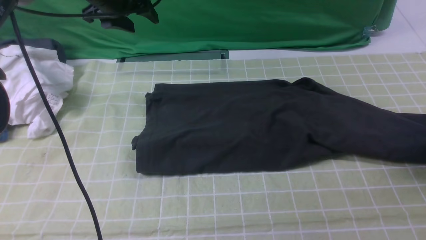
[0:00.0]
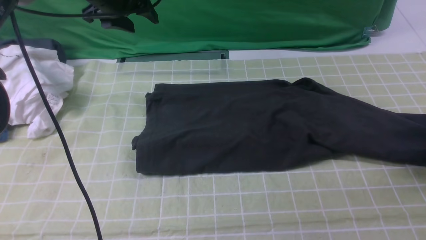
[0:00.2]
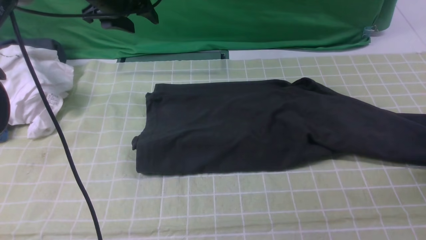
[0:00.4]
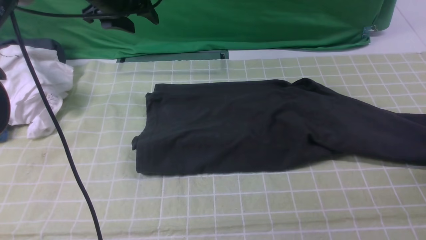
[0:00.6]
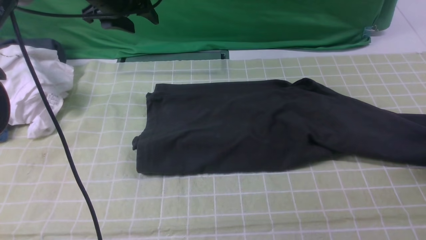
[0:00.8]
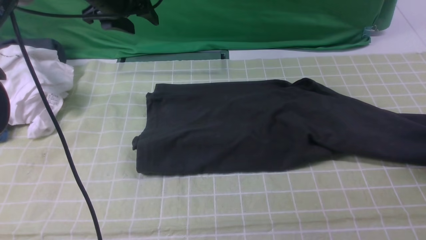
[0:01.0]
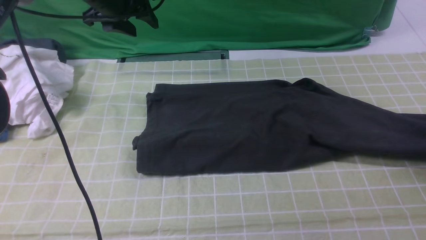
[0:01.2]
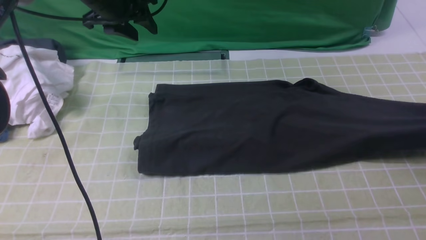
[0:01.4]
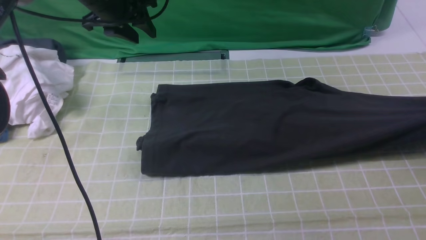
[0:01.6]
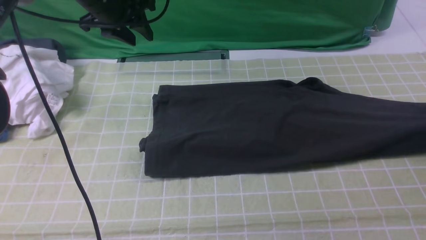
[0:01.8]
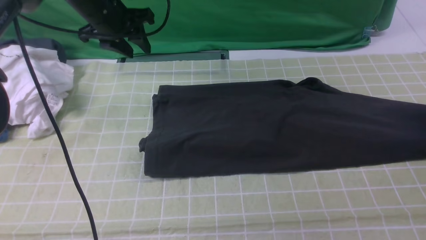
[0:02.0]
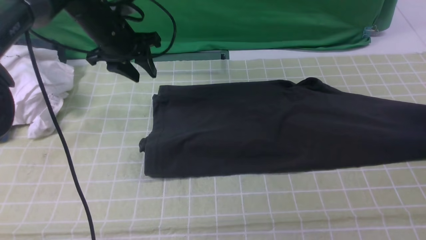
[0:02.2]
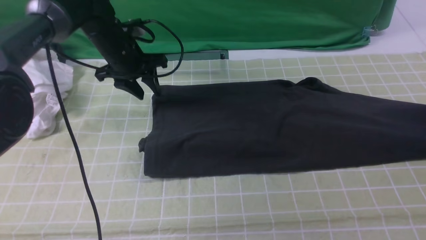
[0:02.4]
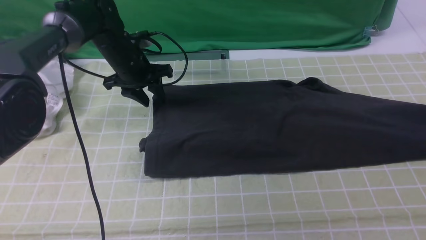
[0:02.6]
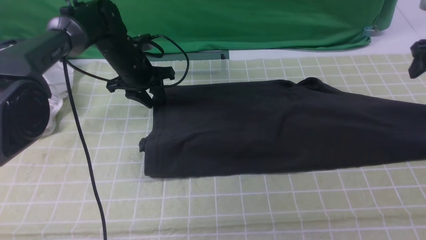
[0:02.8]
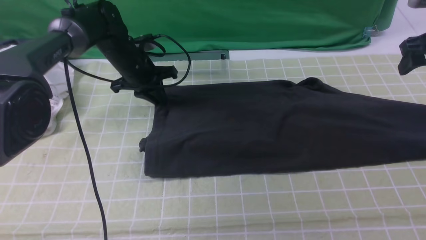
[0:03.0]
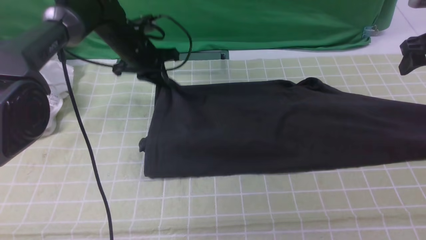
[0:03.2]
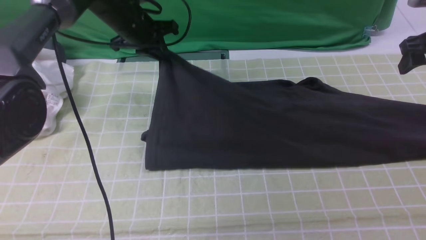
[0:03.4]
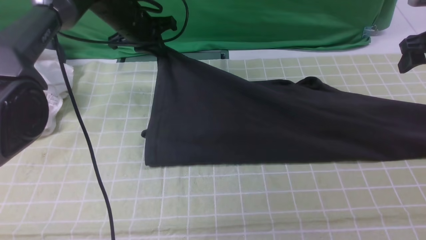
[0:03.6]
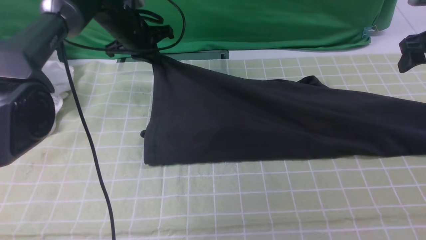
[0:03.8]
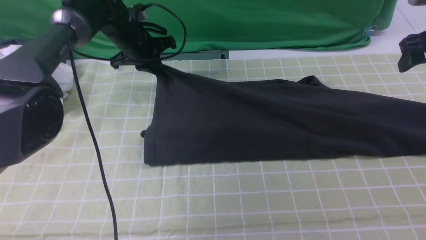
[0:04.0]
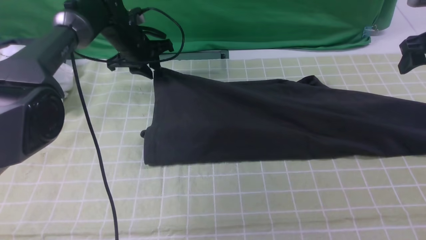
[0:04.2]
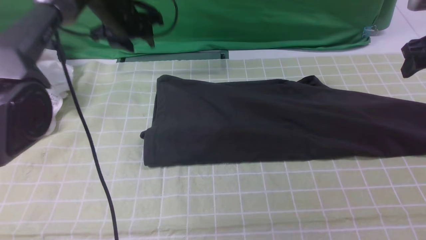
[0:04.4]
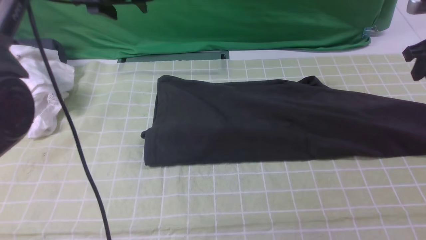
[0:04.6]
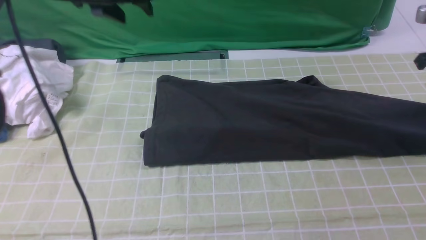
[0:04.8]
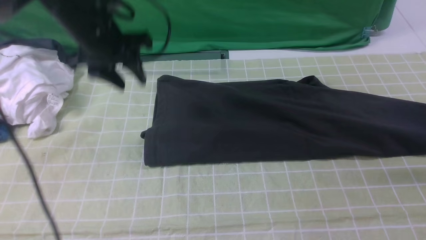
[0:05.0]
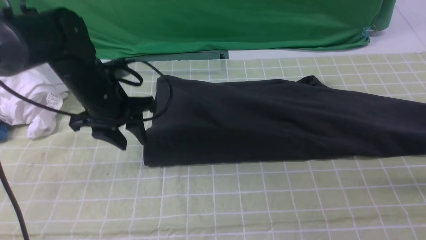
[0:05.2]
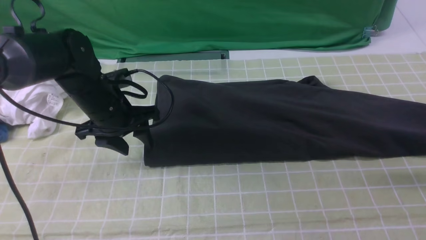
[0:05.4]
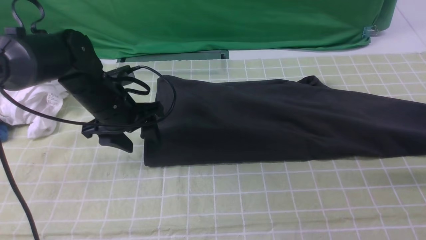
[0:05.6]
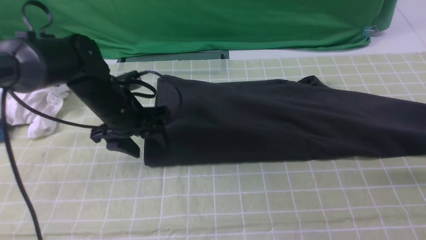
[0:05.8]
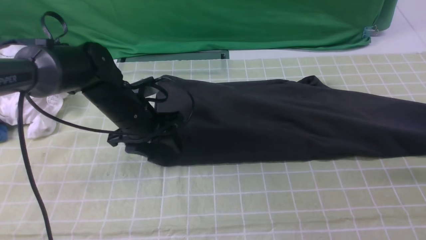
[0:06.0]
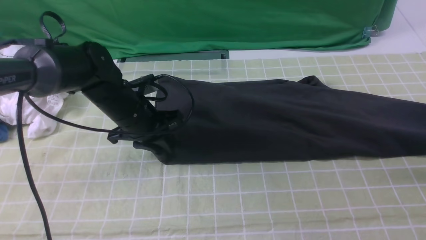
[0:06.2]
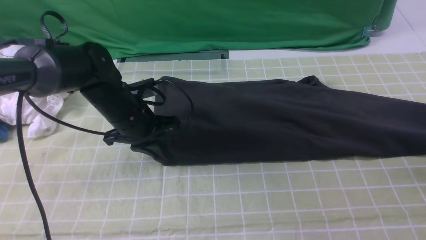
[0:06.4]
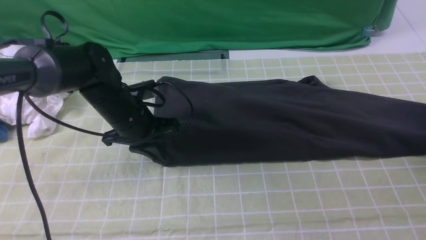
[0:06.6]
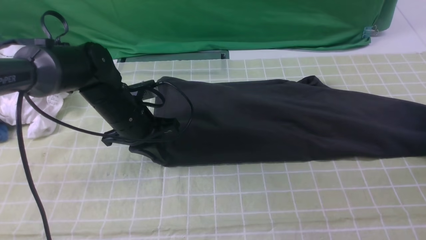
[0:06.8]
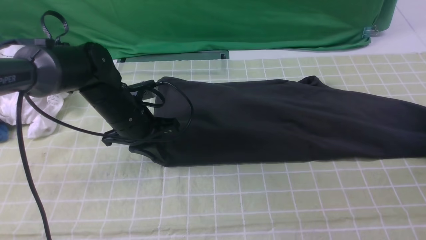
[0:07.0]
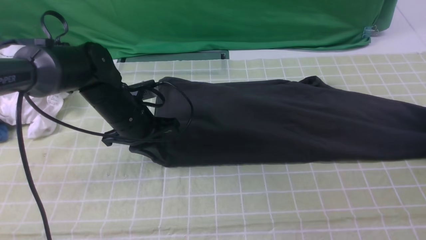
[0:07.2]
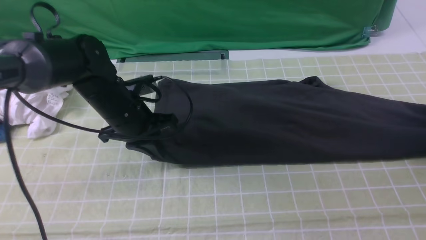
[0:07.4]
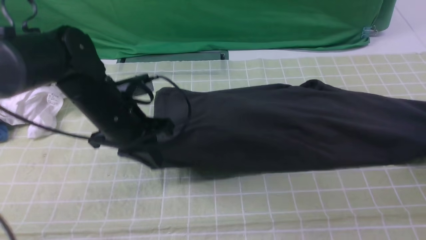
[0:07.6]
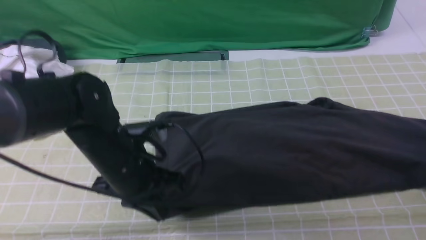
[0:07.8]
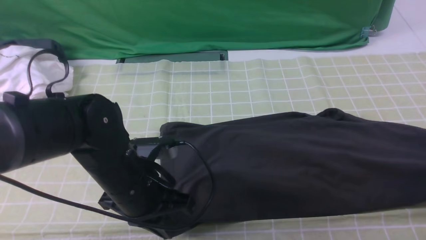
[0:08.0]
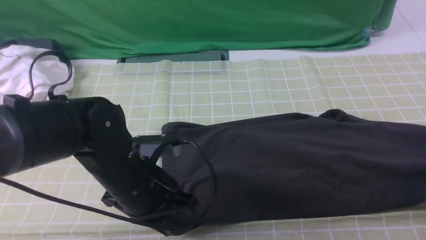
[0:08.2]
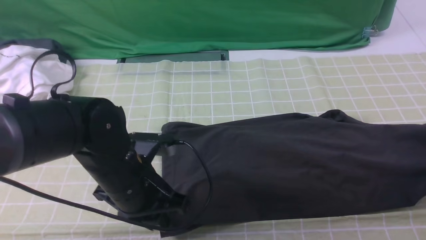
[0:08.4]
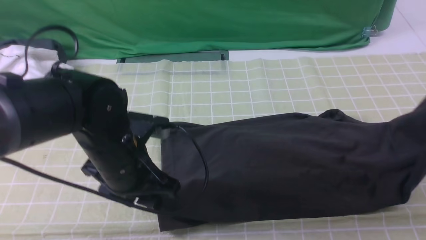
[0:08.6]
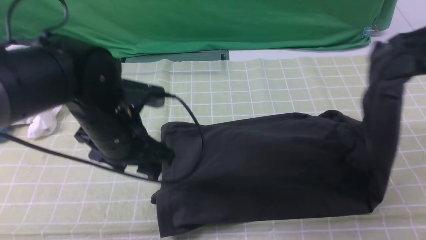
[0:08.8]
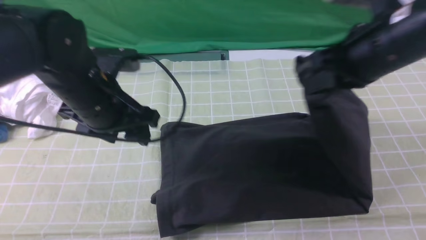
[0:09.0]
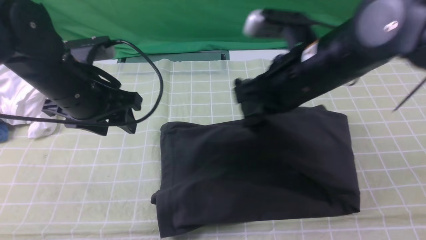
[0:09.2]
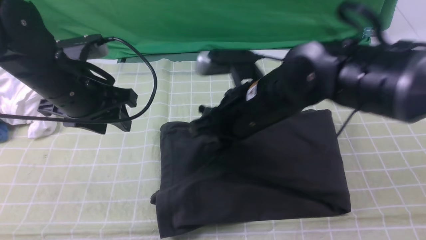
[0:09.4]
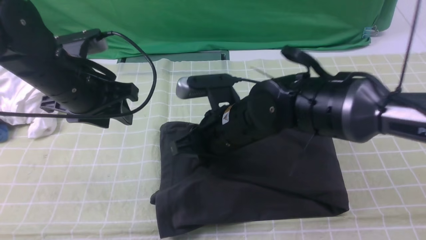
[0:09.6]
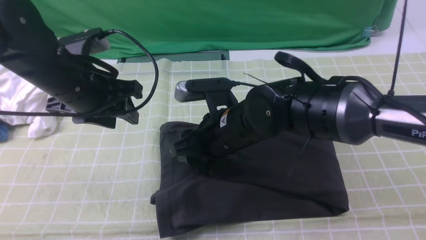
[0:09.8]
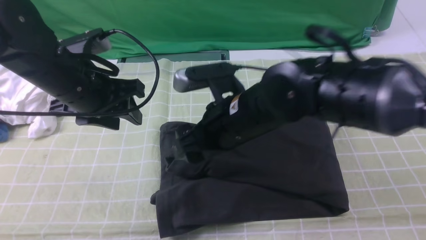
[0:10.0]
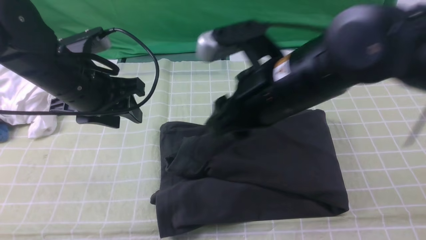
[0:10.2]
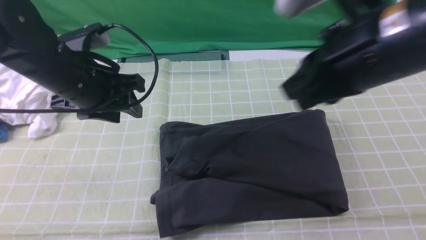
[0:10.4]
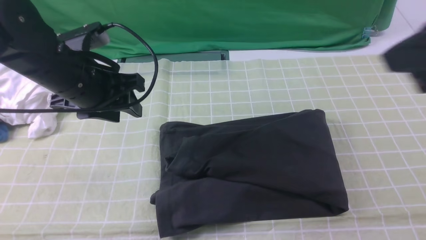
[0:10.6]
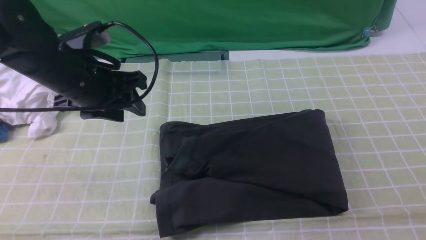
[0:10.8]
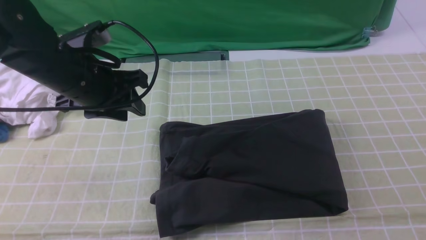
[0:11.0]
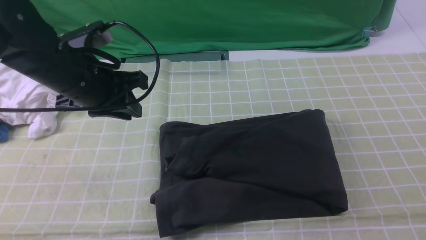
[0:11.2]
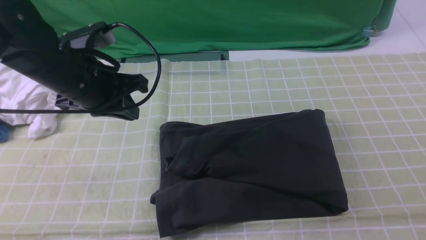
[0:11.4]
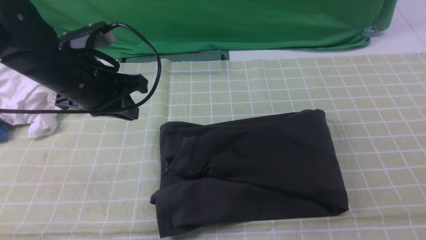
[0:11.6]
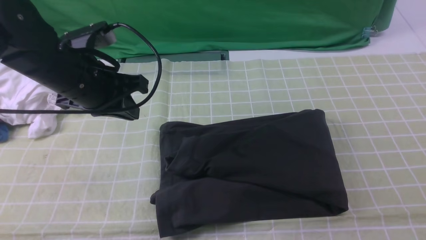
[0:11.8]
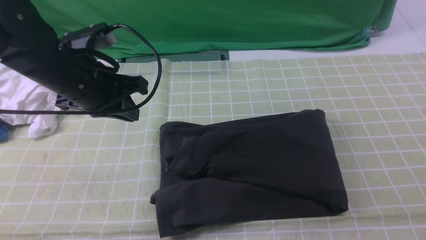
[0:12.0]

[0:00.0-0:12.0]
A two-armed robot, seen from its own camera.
Step, 0:00.0 to 0:07.2: use the right arm to clamp the right edge of the fabric.
Step, 0:07.4 to 0:10.0: use the right arm to drag the right edge of the fabric to the left and folds it over the left edge.
0:00.0 to 0:01.6: The right gripper travels to the right by about 5 cm, and closes up.
0:01.6 to 0:03.0: The right gripper is displaced to the left, forward and upward by approximately 15 cm, and opens its fingers. Meanwhile the left gripper is displaced downward by roughly 10 cm, and closes.
0:03.0 to 0:04.4: The left gripper is displaced upward by roughly 10 cm, and opens its fingers.
0:04.4 to 0:06.0: The left gripper travels backward and downward by about 20 cm. Meanwhile the right gripper goes approximately 5 cm backward, and closes up.
0:06.0 to 0:07.6: The right gripper is displaced to the right by some 5 cm, and opens and closes again. The left gripper shifts roughly 5 cm backward, and closes.
0:07.6 to 0:09.0: The right gripper travels to the left by some 30 cm, while the left gripper heads upward, covering about 5 cm, reaches roughly 10 cm backward, then returns, and opens up.
0:09.0 to 0:10.4: The right gripper shifts about 10 cm backward and upward, and opens, then closes again.
0:10.4 to 0:12.0: The left gripper closes. The right gripper heads backward, to the right and downward, covering roughly 25 cm.

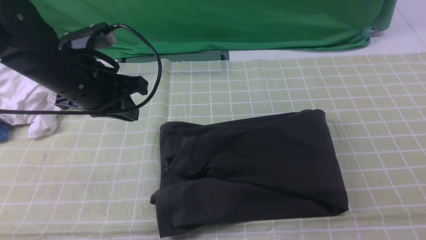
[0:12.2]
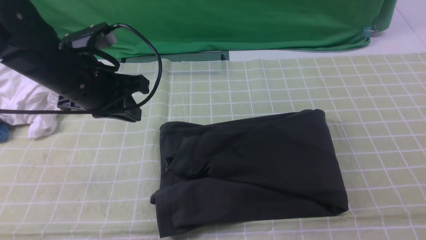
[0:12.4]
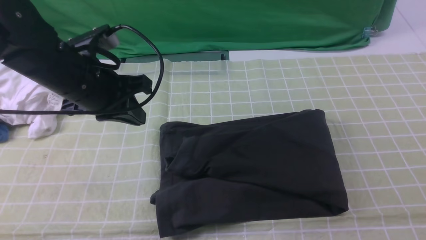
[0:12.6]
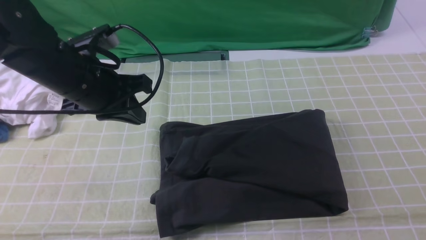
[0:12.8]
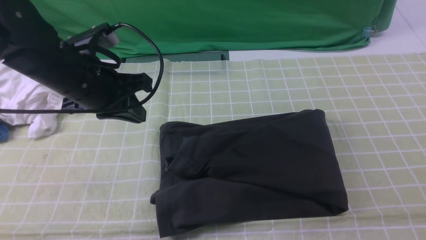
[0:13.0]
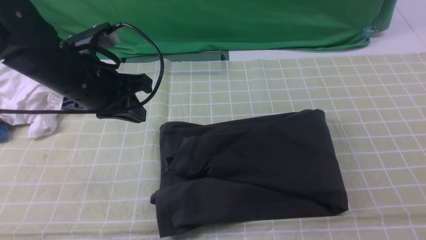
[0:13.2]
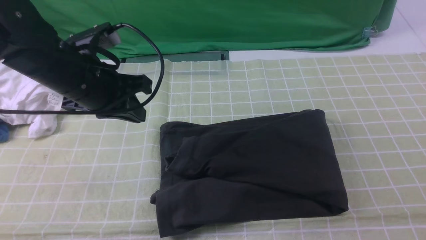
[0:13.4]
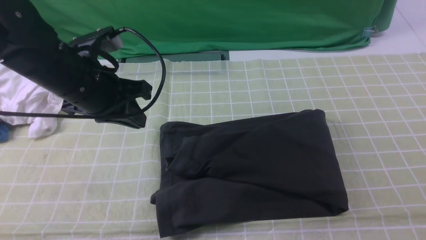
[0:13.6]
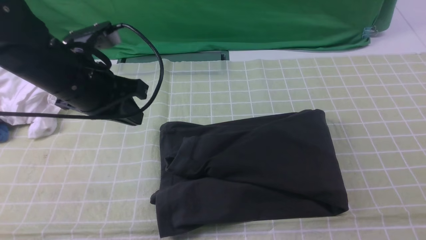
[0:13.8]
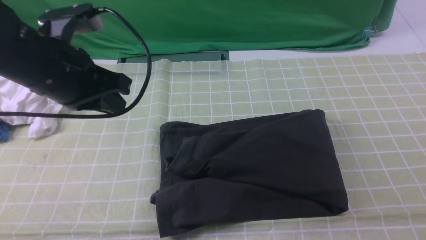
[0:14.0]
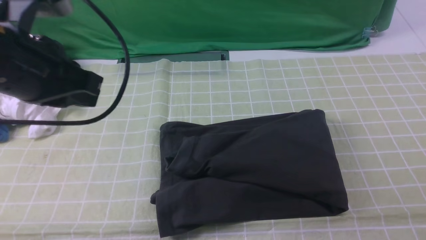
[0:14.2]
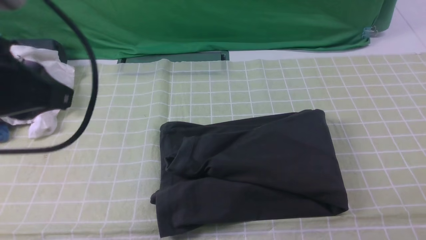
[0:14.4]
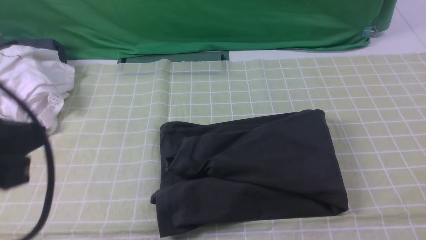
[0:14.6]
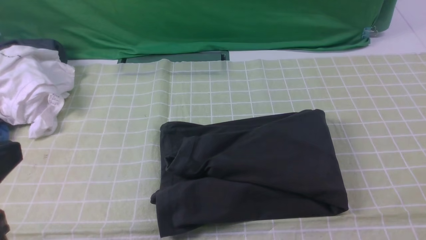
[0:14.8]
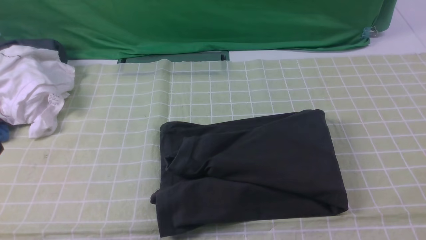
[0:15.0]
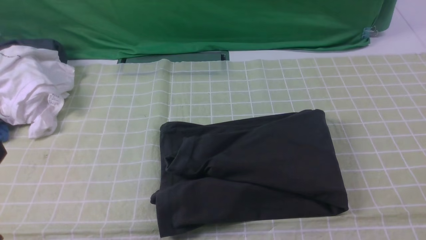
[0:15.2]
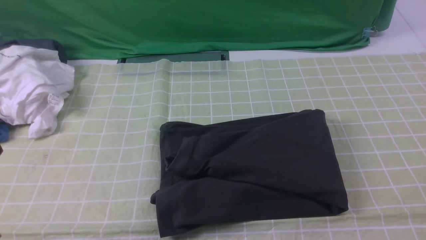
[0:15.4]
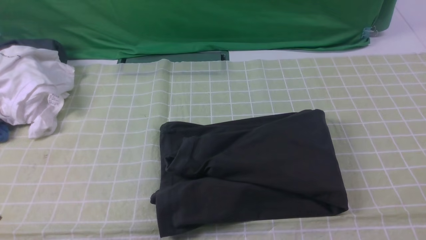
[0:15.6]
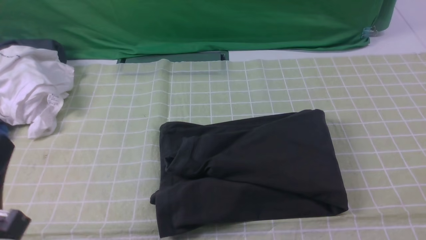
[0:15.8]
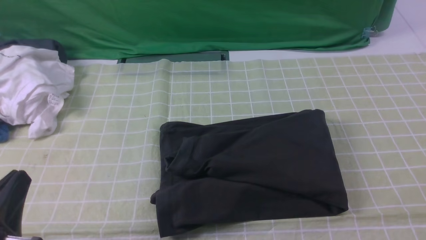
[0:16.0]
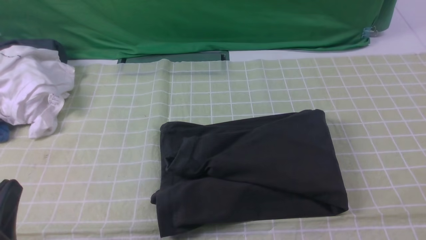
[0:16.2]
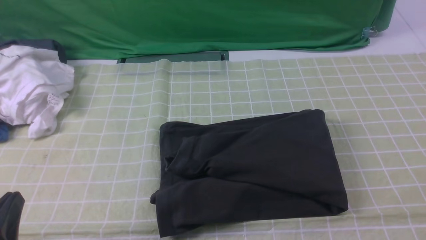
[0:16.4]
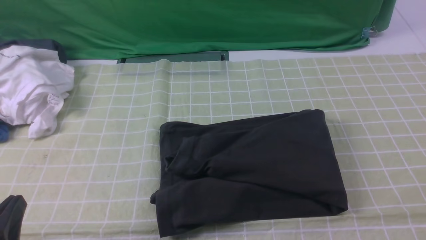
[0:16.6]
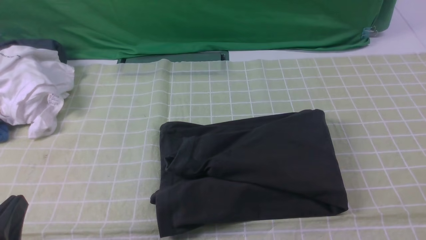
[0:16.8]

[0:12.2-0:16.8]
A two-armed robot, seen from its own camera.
0:13.8 to 0:15.2: The left gripper moves backward, some 25 cm.
0:15.2 to 0:16.8: The left gripper goes some 15 cm downward.
